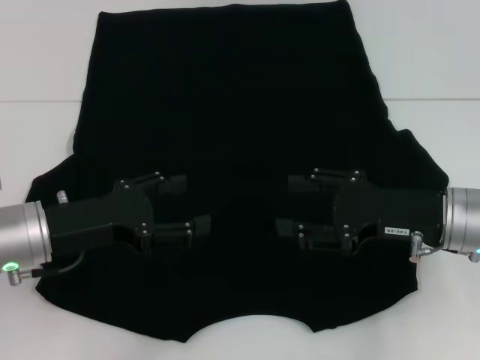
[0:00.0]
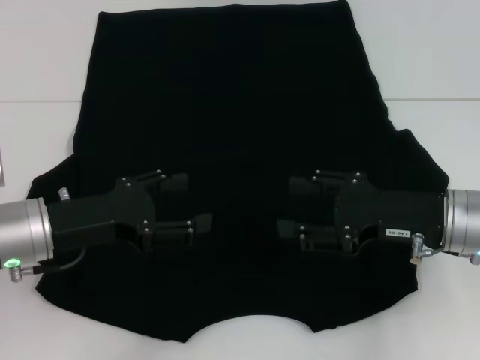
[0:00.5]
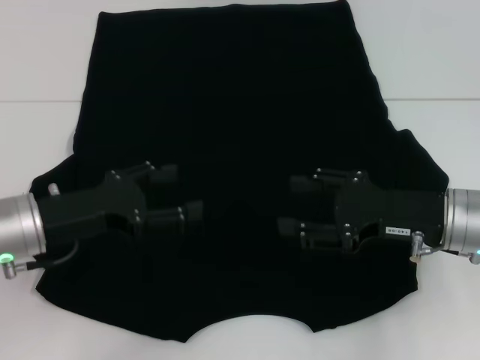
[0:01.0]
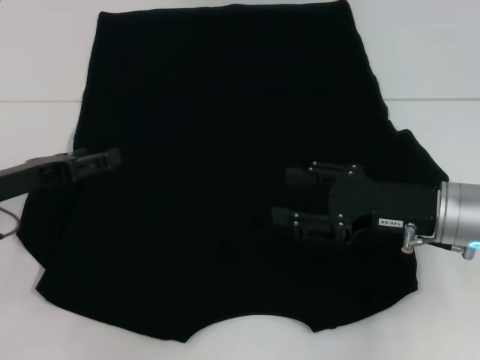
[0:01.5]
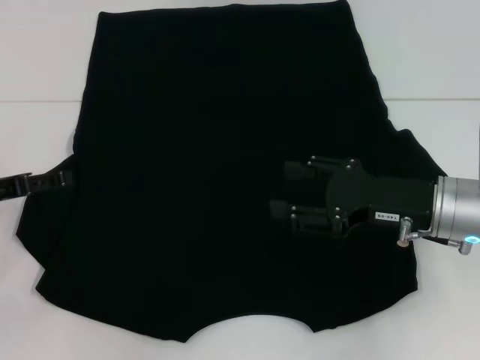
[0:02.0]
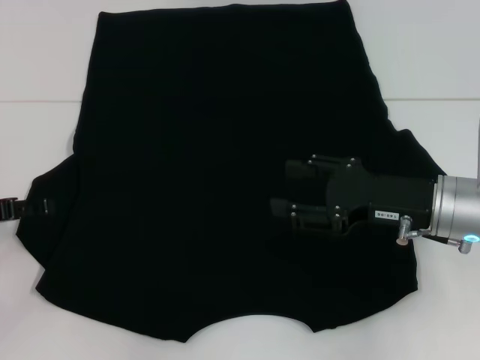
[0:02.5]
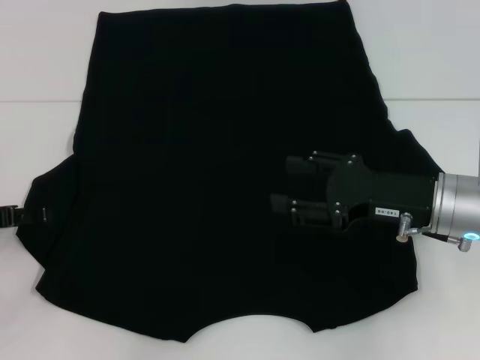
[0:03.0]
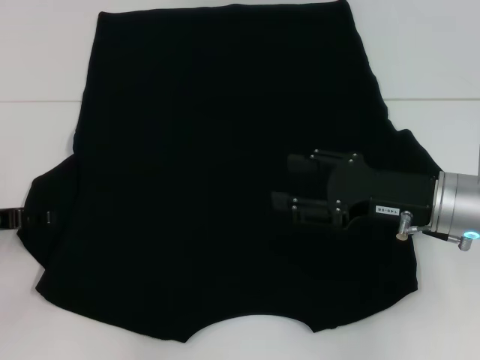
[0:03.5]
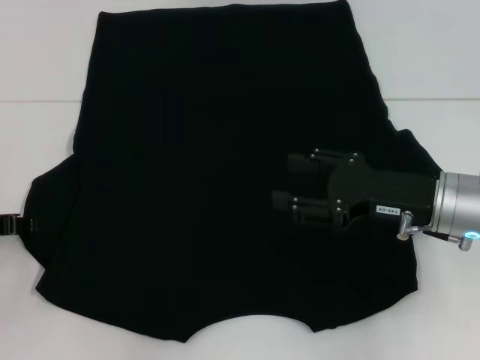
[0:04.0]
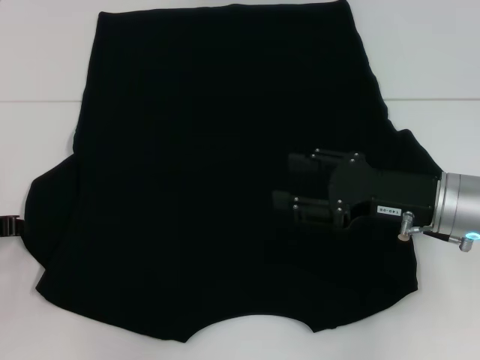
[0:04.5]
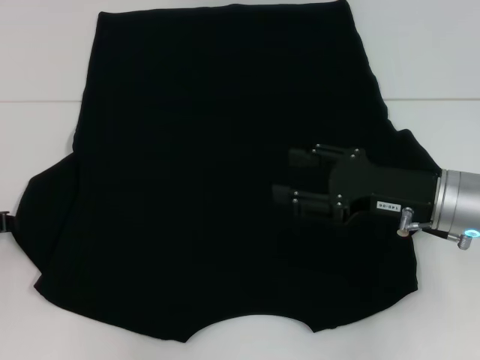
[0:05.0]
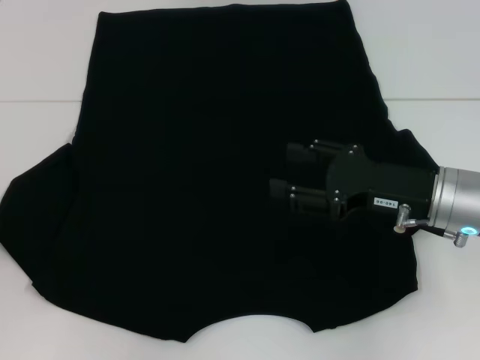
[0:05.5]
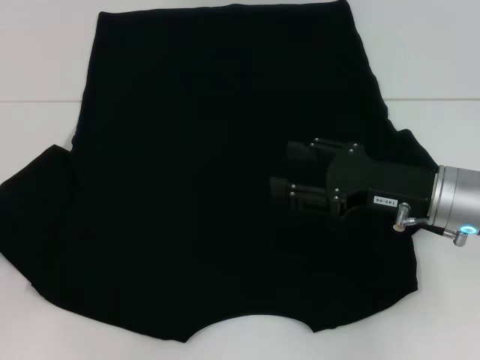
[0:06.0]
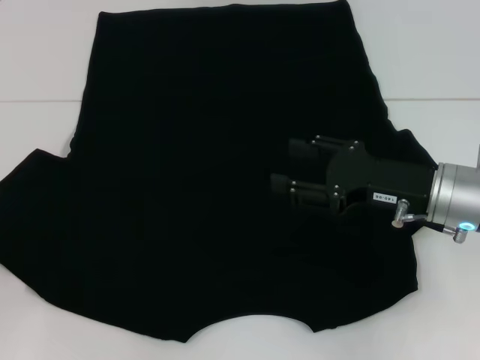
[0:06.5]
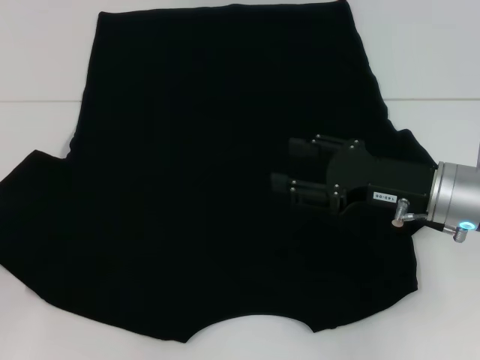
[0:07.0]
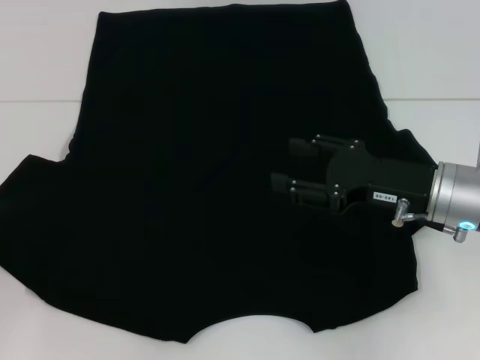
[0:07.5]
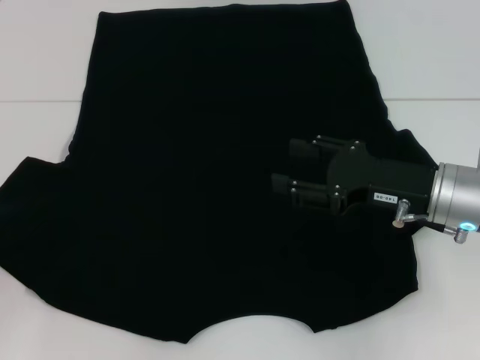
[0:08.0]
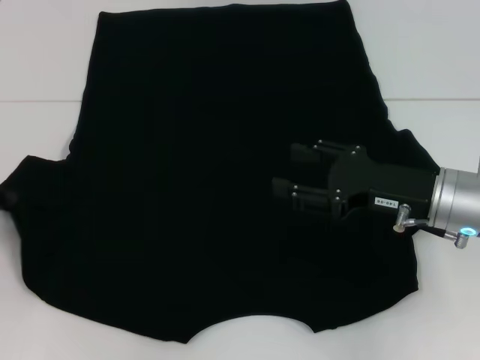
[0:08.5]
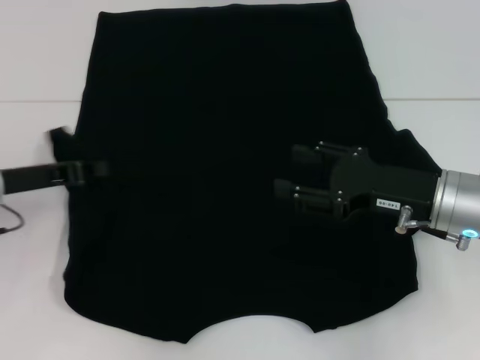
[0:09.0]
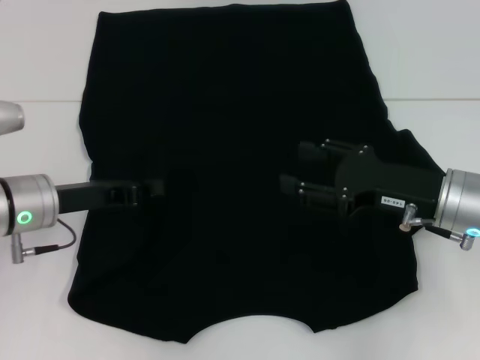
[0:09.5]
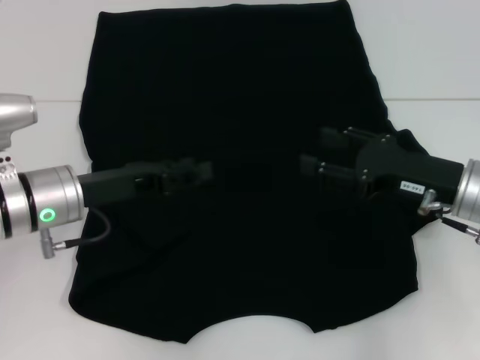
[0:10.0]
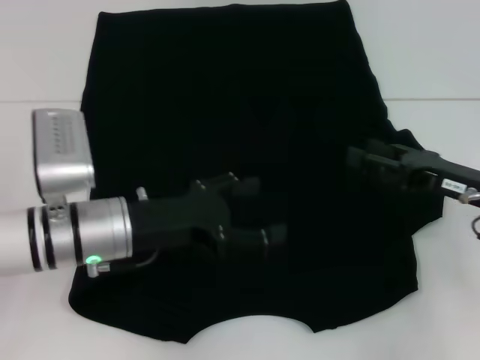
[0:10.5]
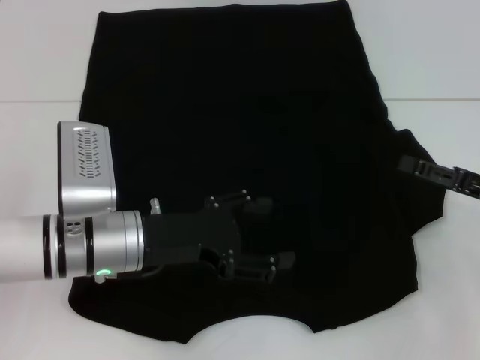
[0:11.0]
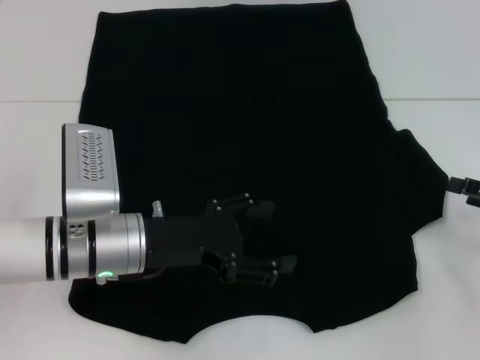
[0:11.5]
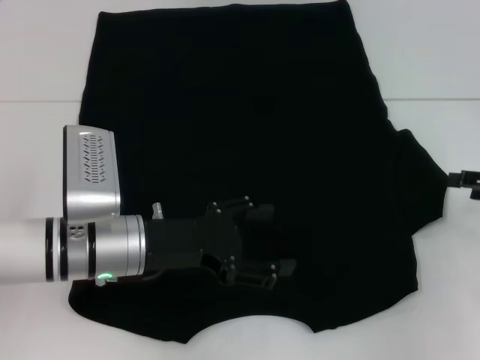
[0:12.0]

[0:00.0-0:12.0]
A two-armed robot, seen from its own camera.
Step, 0:00.0 to 0:09.5: Fold the bottom left sleeve with your left hand.
0:00.0 to 0:02.0: The left gripper shifts some 10 cm to the left.
0:02.0 to 0:04.0: The left gripper closes its fingers.
0:04.0 to 0:06.0: The left gripper closes its fingers.
0:06.0 to 0:08.0: The grippers stay close to where they were, moving slightly.
0:08.0 to 0:10.0: The left gripper is displaced to the right and forward by about 20 cm, and opens.
0:10.0 to 0:12.0: The right gripper is displaced to the right by approximately 15 cm. Meanwhile the left gripper heads to the right, covering about 5 cm, and opens its fingers.

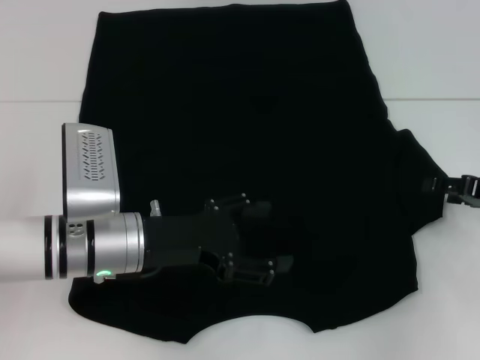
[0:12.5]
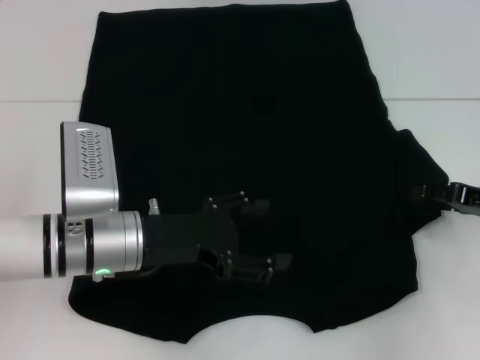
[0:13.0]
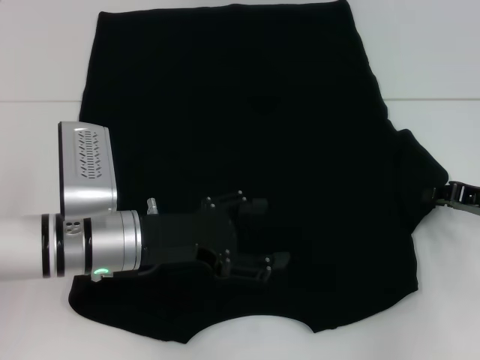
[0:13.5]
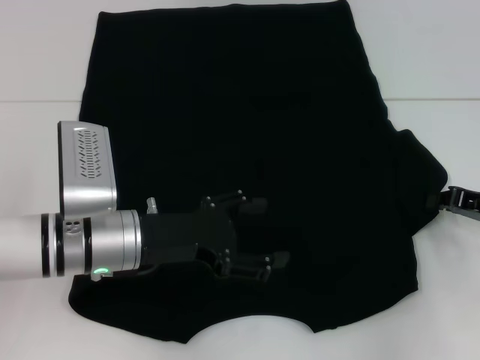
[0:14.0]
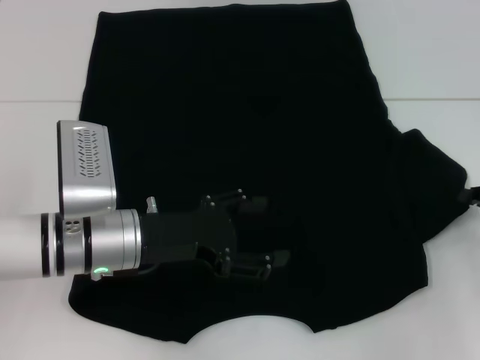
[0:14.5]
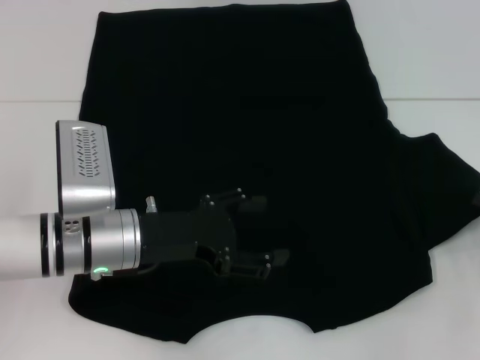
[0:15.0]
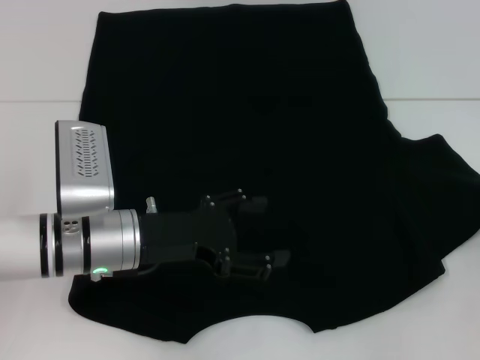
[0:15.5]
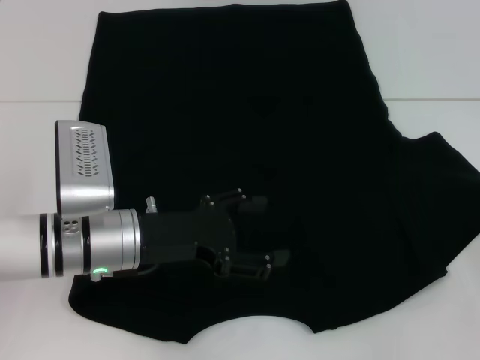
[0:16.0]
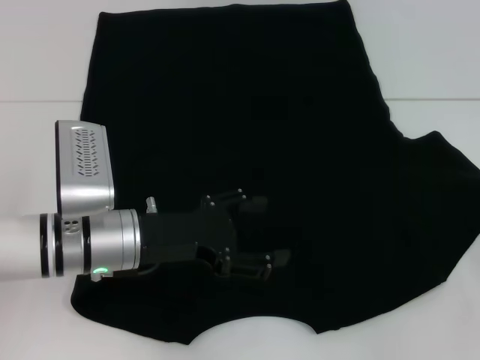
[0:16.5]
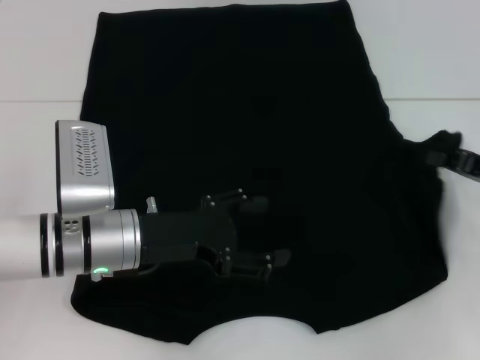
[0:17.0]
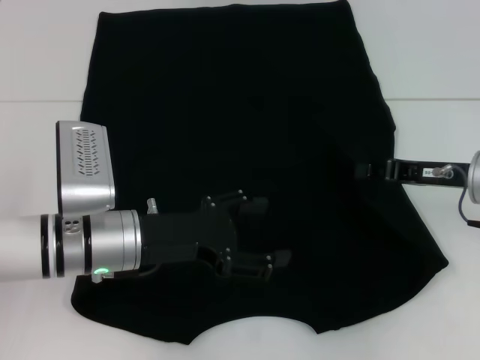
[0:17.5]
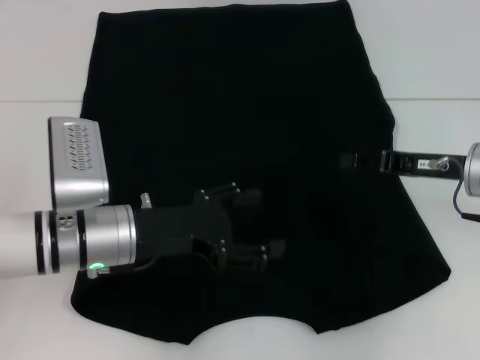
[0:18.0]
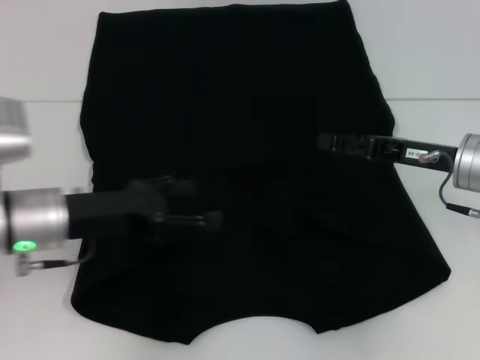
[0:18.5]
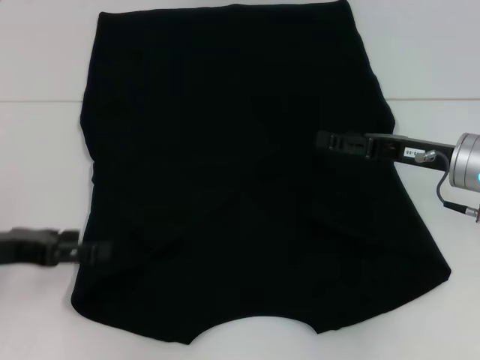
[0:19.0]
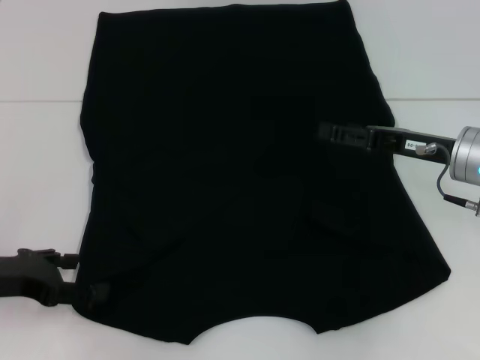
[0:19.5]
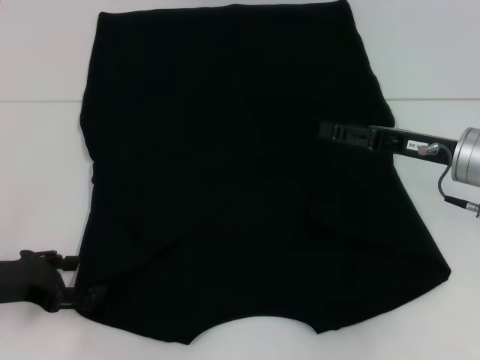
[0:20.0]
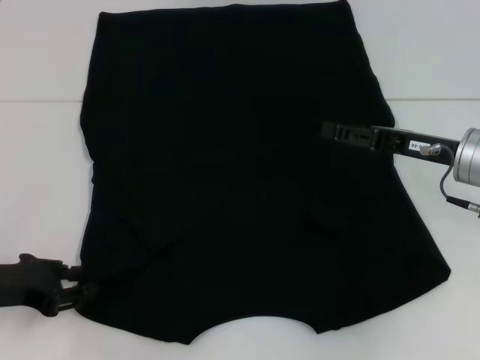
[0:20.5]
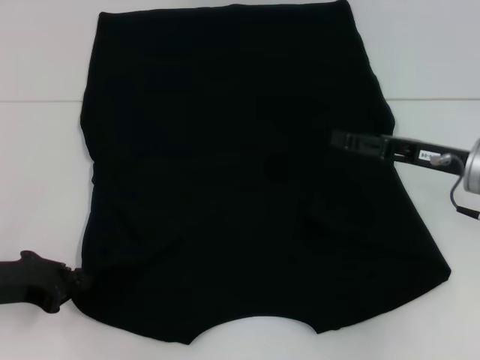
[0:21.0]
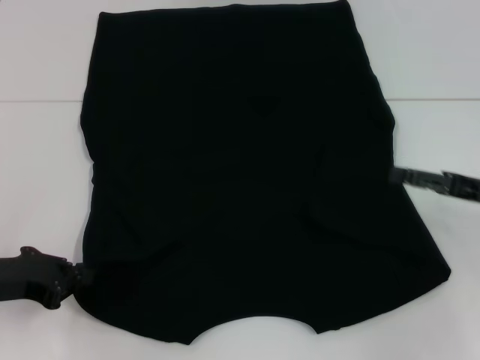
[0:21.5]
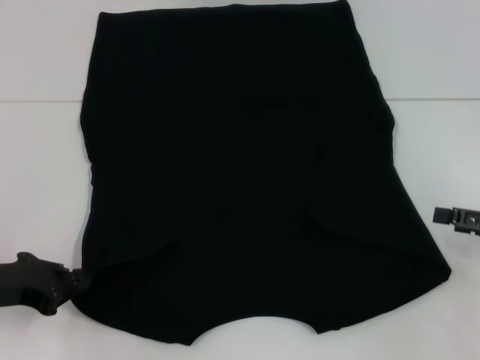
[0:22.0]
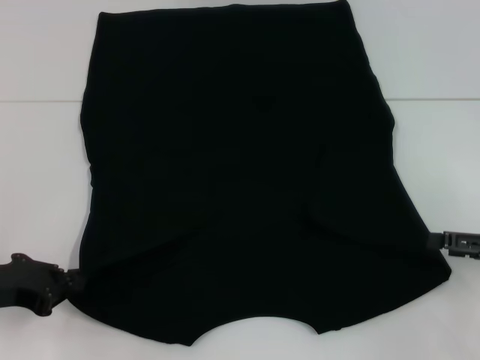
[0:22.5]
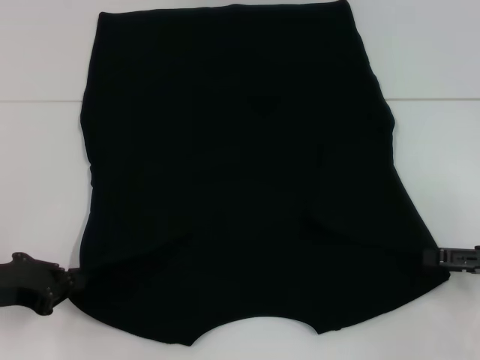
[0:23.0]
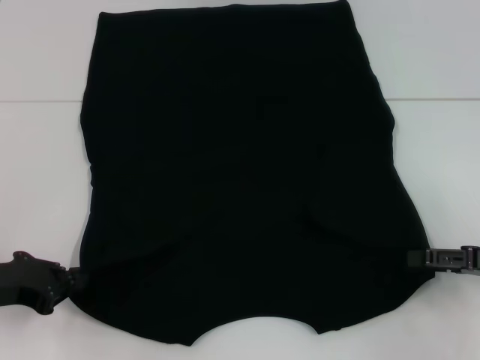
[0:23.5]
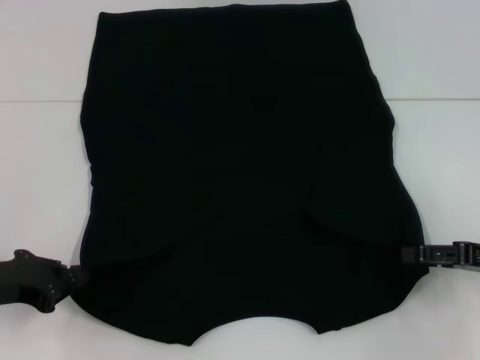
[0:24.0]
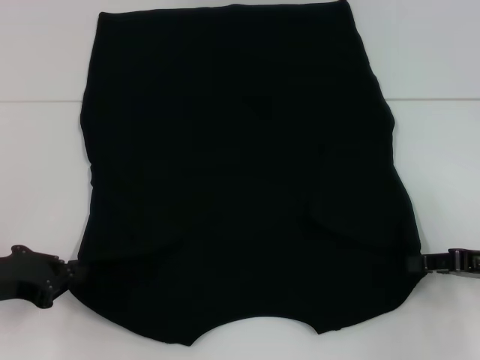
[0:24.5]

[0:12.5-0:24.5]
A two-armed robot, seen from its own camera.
Step, 0:12.5 to 0:18.0: Fold the bottom right sleeve with your right hand.
Step, 0:18.5 to 0:21.0: Grab the bottom left corner with your left hand.
0:12.5 to 0:14.5: The right gripper closes up.
0:14.5 to 0:16.5: The grippers make only small movements.
0:16.5 to 0:18.5: The left gripper heads to the left, covering roughly 5 cm. Meanwhile the right gripper goes some 15 cm to the left, and opens.
0:18.5 to 0:20.5: The left gripper shifts about 10 cm to the left, and closes up.
0:20.5 to 0:22.5: The left gripper closes up. Meanwhile the right gripper heads to the right and backward, covering roughly 15 cm.
0:22.5 to 0:24.5: The right gripper closes up.

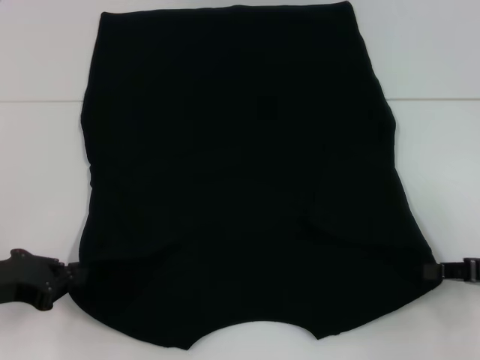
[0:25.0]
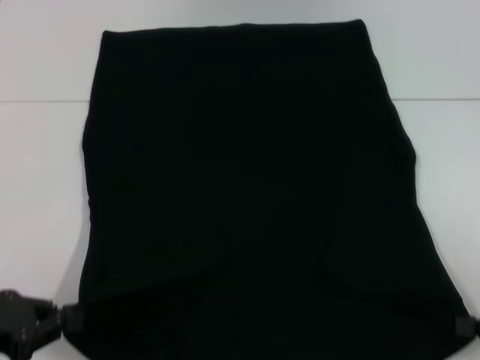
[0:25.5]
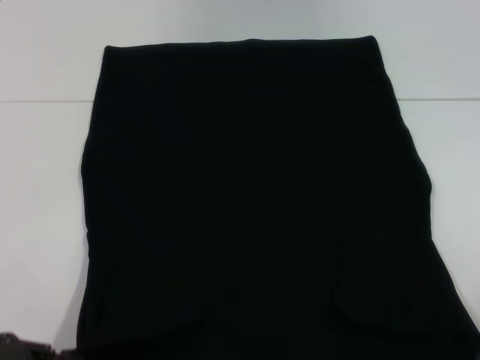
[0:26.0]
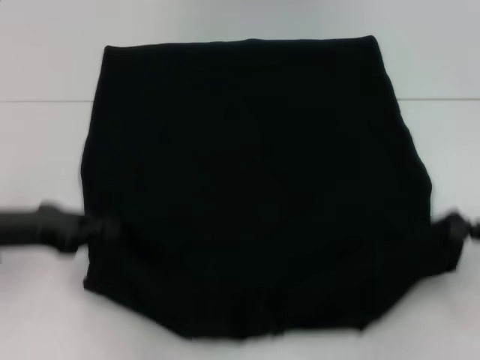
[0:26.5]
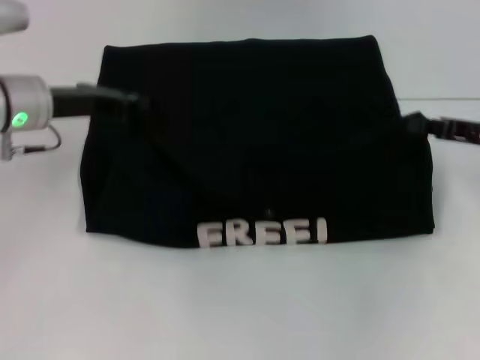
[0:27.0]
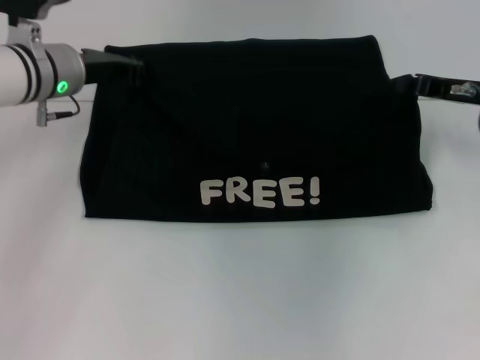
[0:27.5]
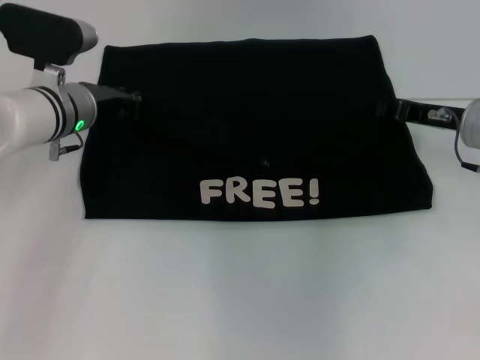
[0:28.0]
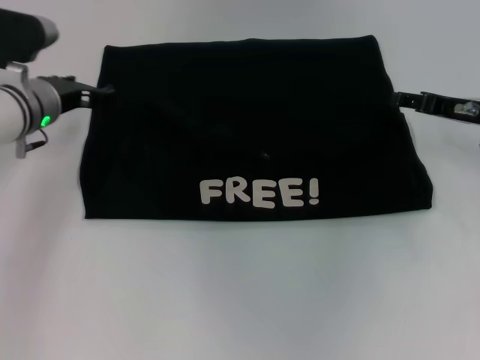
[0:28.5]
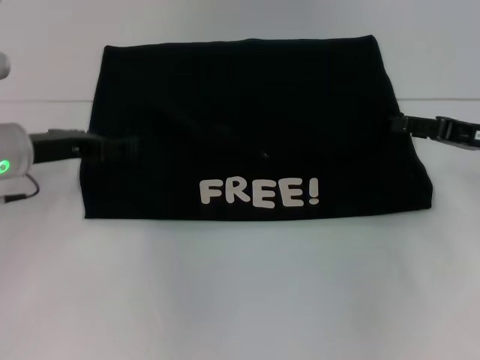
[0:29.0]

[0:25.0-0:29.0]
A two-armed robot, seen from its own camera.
Step, 0:25.5 to 0:28.5: Fold the clothes with your left hand.
Step, 0:25.5 to 0:28.5: Fold the clothes with your right hand.
0:25.0 to 0:27.0: The right gripper is displaced forward and upward by roughly 10 cm. The left gripper moves forward, upward and to the right, some 20 cm.
0:27.0 to 0:29.0: The left gripper opens; the right gripper opens.
